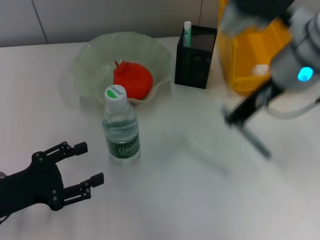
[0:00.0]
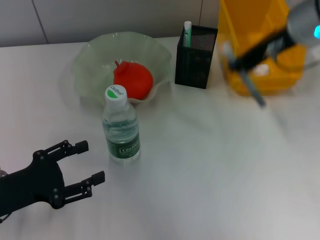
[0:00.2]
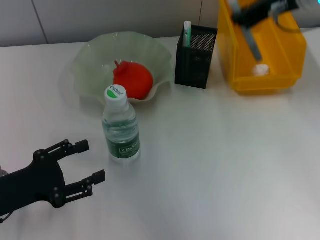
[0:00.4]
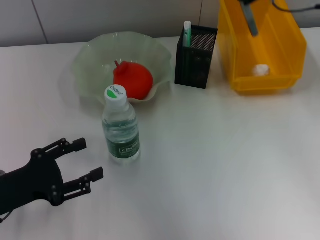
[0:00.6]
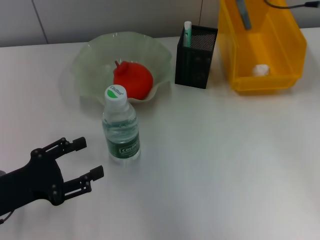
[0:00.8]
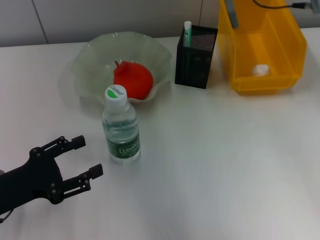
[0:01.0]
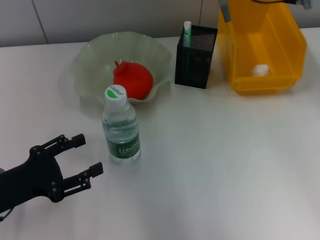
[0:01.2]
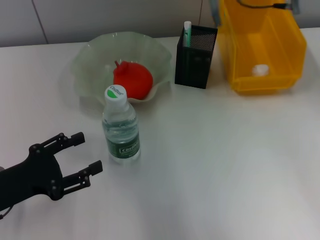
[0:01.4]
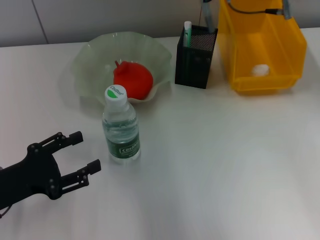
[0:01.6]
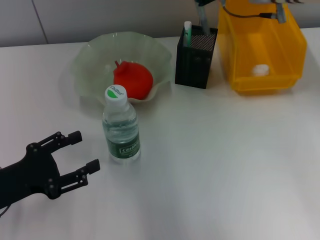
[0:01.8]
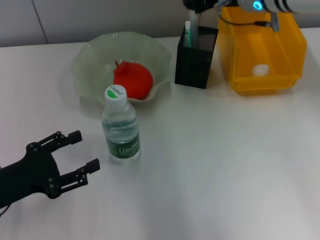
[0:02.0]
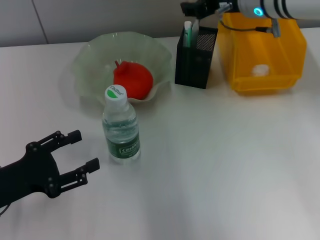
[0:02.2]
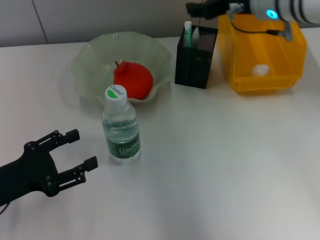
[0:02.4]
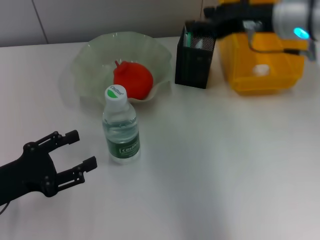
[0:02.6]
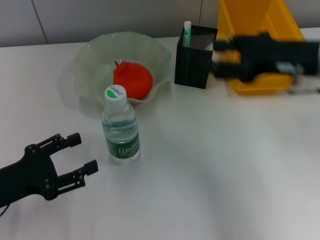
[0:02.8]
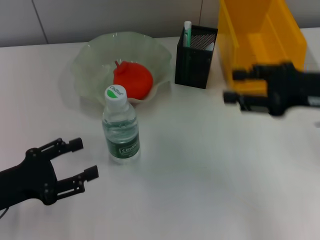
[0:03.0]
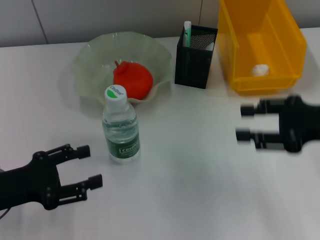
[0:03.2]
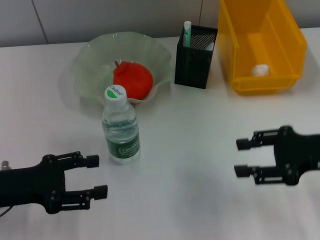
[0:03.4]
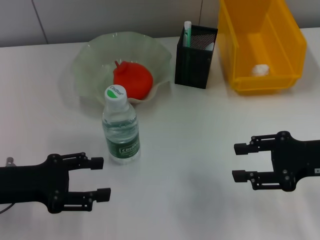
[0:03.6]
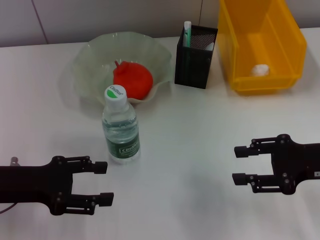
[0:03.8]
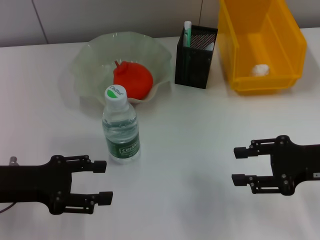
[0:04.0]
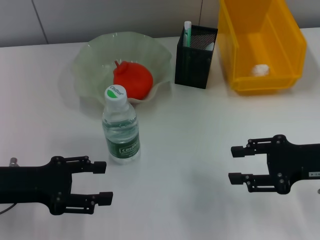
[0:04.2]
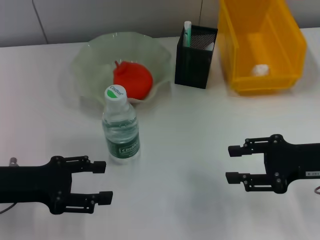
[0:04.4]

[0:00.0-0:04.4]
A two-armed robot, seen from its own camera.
Step, 0:00.0 to 0:02.6: Place the gray glue into the pen holder with the right hand.
0:00.0 to 0:01.4: The right gripper heads forward, covering roughly 10 cm.
0:01.4 to 0:03.0: The right gripper is displaced backward, to the right and downward by roughly 20 cm, and opens up.
0:03.0 to 0:04.4: The right gripper heads downward, covering roughly 5 cm.
